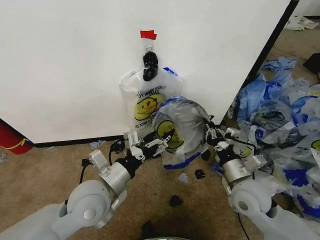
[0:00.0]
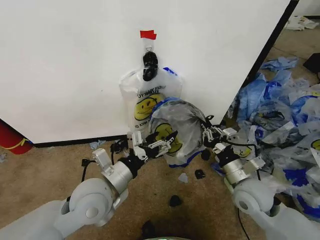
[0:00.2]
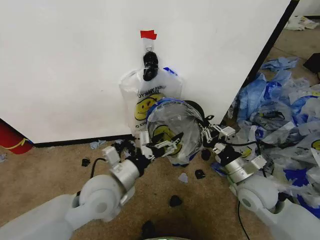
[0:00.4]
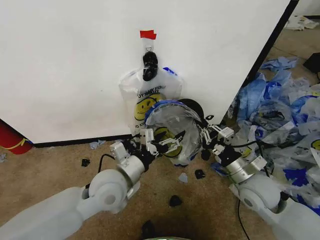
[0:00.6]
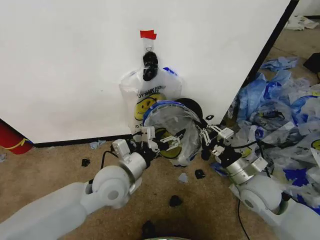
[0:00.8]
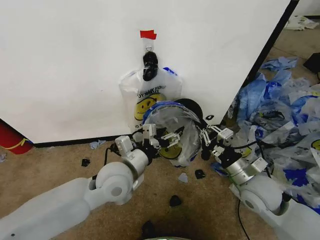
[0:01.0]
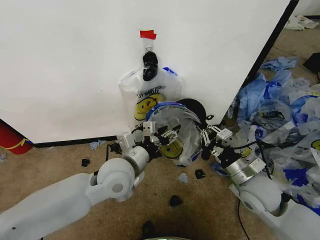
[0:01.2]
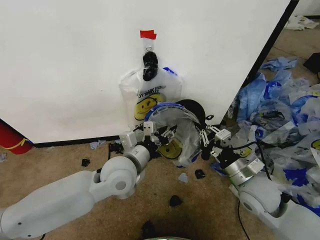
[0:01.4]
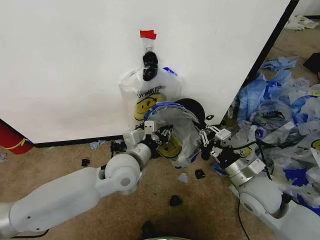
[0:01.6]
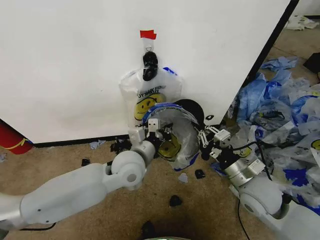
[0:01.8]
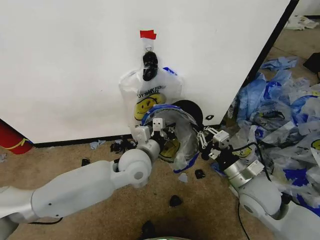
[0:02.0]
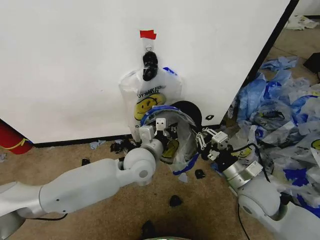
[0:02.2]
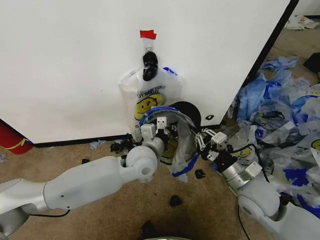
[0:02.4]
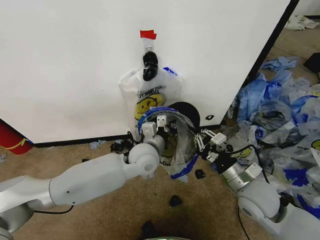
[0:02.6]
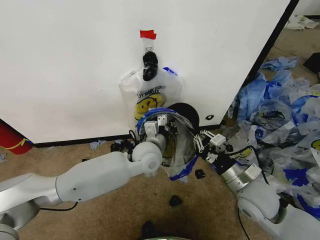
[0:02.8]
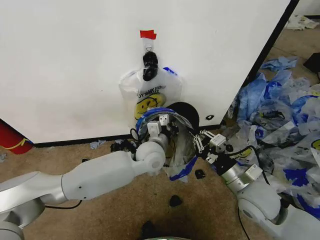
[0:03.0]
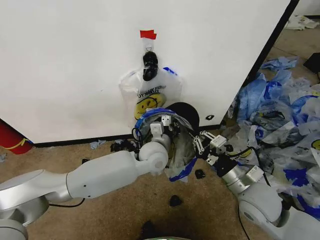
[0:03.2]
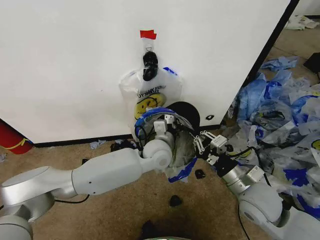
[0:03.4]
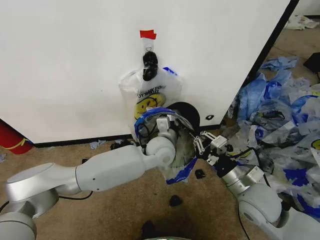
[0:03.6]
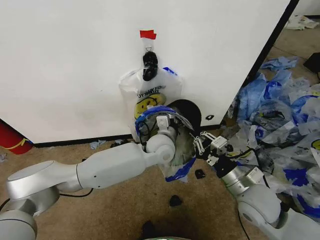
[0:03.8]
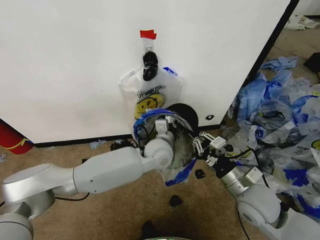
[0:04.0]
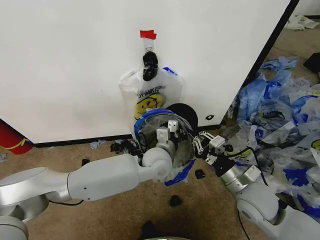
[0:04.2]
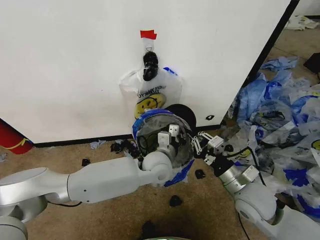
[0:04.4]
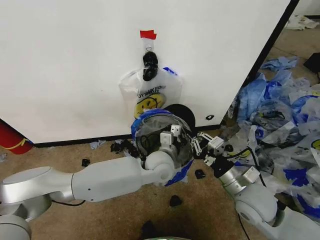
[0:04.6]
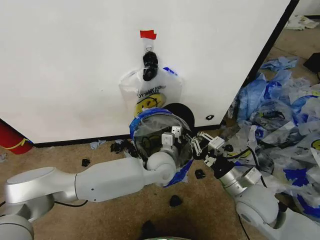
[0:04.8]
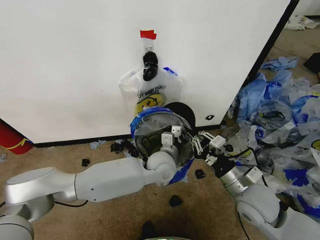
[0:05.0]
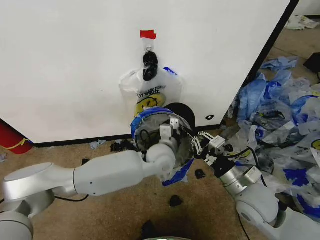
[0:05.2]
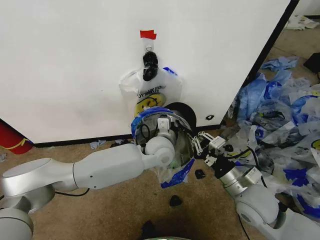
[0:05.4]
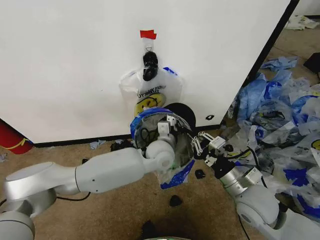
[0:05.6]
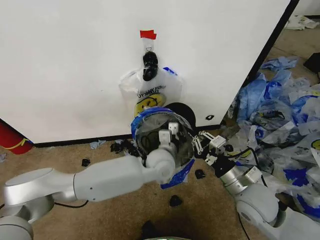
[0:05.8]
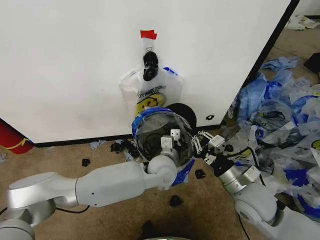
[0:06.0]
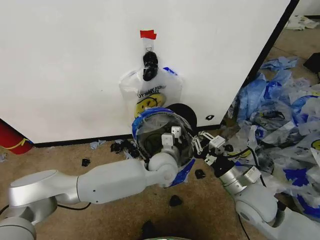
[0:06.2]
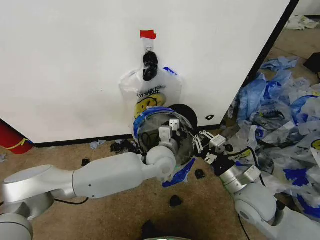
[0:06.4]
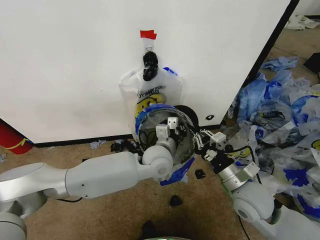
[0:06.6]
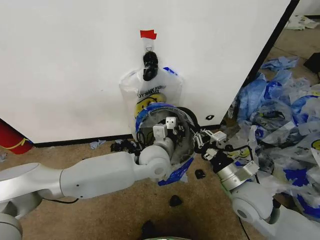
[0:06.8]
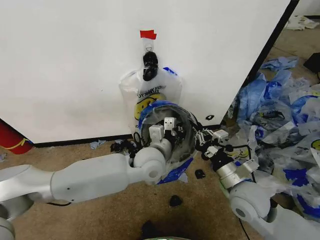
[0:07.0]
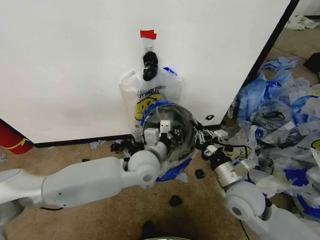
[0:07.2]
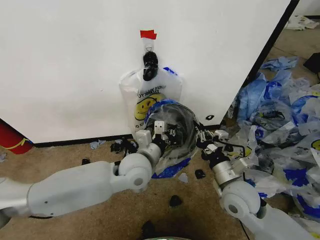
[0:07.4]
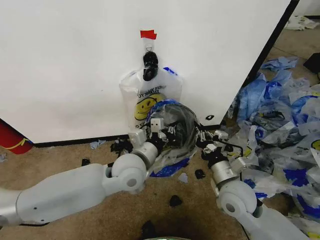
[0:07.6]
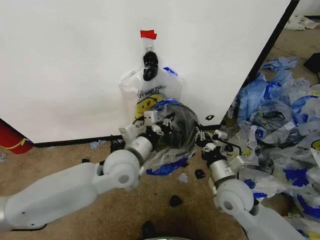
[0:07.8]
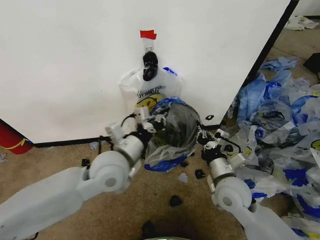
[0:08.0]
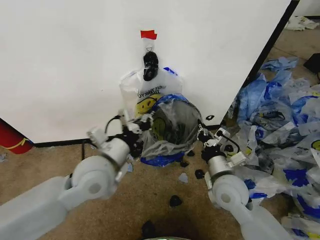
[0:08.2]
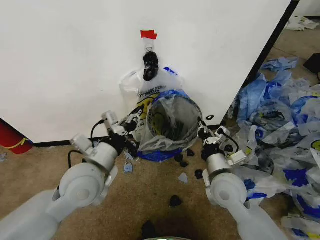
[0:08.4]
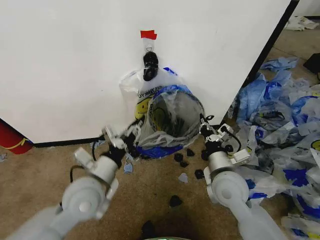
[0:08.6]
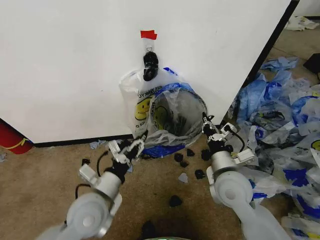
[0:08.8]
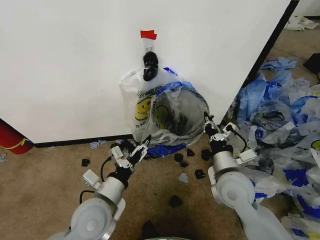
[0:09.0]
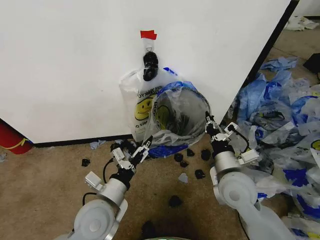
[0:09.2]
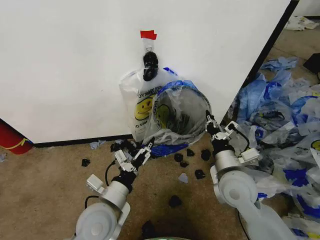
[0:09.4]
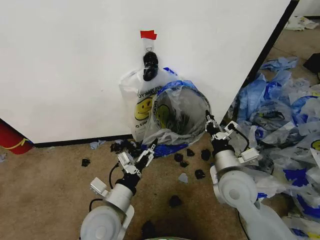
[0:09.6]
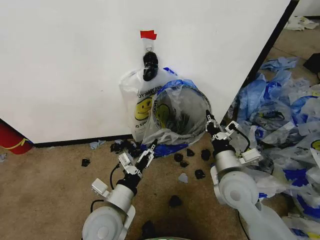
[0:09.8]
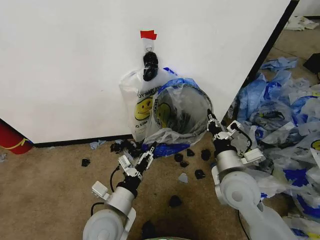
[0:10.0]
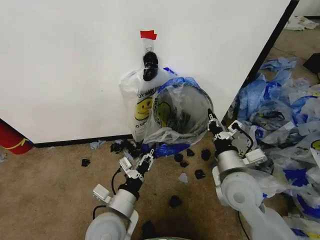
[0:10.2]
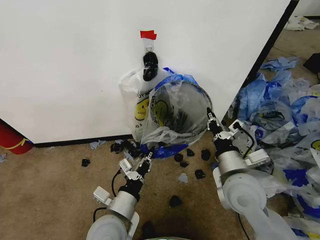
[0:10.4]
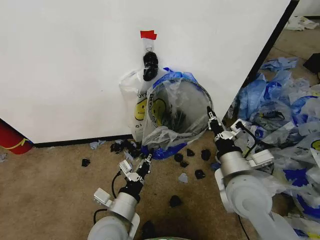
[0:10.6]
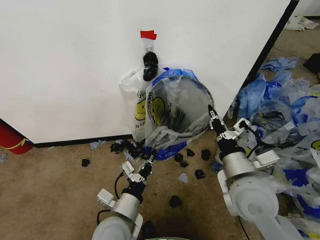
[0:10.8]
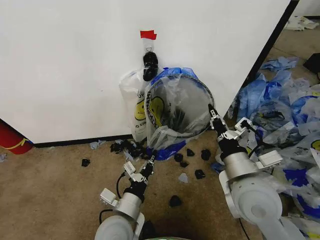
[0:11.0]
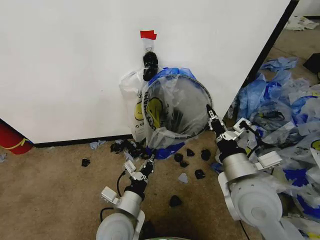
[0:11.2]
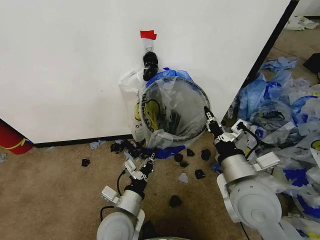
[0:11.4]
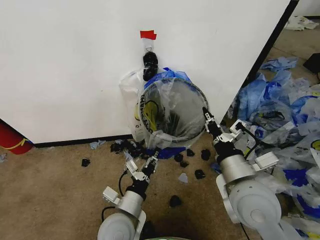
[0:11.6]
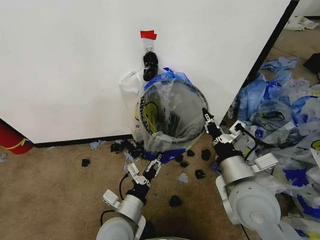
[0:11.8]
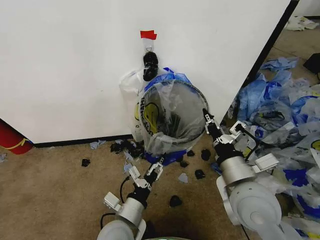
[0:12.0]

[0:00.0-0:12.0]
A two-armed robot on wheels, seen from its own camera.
Task of the whole recording: Pick up the garbage bag from the wall and place it over the trash bin.
0:00.0 to 0:01.6: The left gripper is displaced forward and to the right by about 10 cm, and closes up.
0:01.6 to 0:03.0: The left gripper goes roughly 10 cm to the right and forward.
0:03.0 to 0:06.0: The grippers move only a little.
0:06.0 to 0:07.6: The left gripper is displaced to the left and upward by some 10 cm.
0:07.6 to 0:09.0: The left gripper heads backward, to the left and downward, covering some 15 cm, and opens up.
0:09.0 to 0:10.4: The left gripper shifts by roughly 5 cm, and closes its fingers.
0:10.4 to 0:12.0: The left gripper opens up.

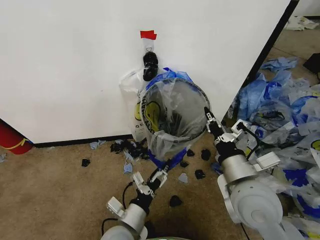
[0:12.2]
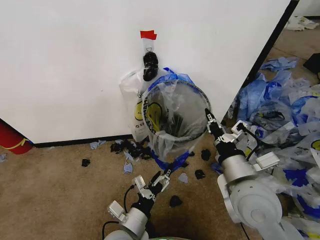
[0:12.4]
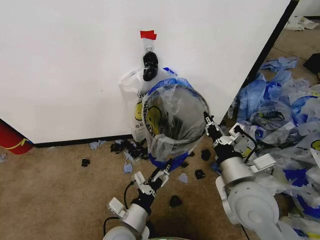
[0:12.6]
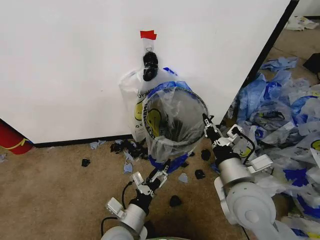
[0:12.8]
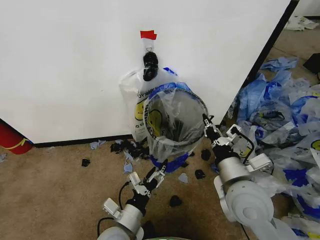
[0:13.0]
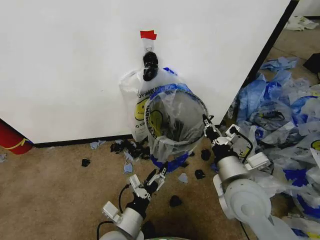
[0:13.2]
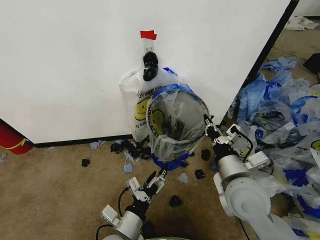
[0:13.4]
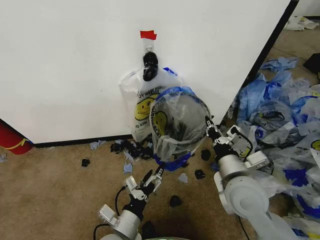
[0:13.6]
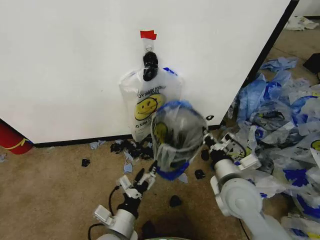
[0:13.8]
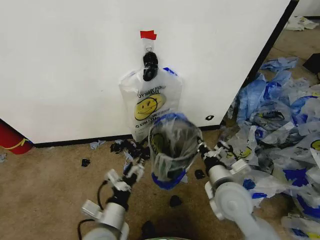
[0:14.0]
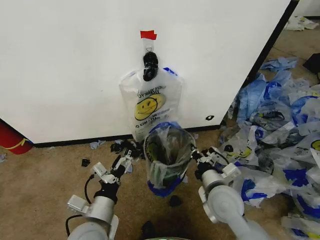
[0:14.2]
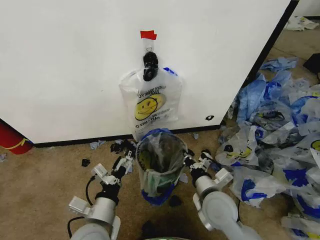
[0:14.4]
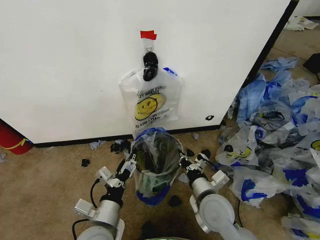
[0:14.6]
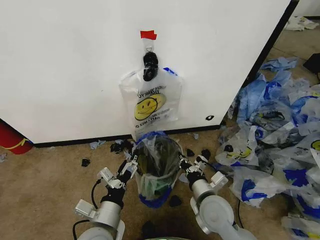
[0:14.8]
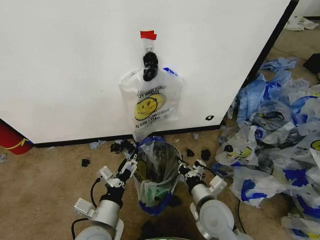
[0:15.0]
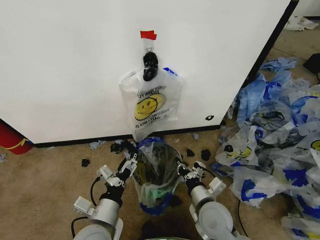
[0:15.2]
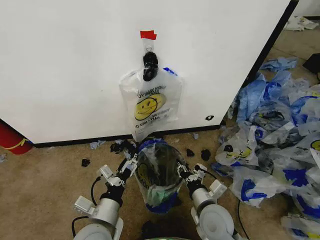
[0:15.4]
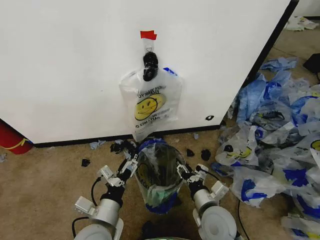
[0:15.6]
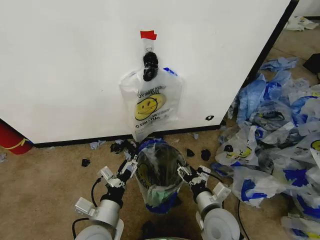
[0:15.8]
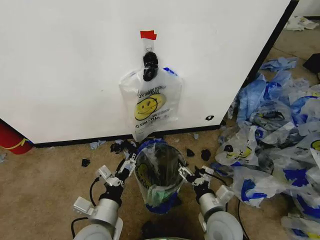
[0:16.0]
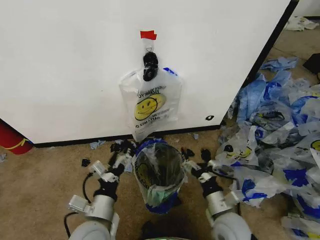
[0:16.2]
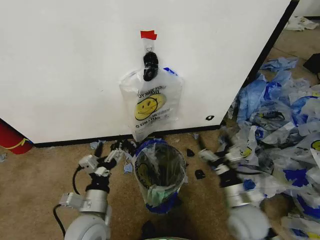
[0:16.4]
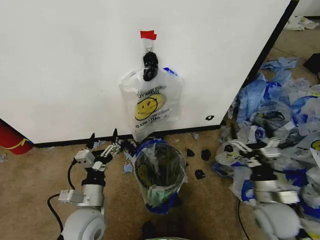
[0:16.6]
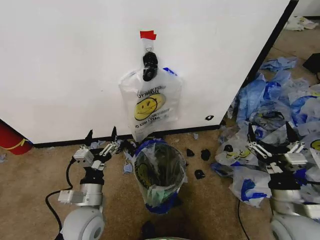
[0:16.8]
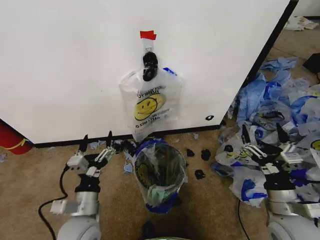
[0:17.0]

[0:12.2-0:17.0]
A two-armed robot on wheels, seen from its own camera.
Task of the whole recording: Pick up the garbage bag from the wall and place it over the trash bin.
0:12.2 to 0:13.8: The right gripper heads downward, covering some 5 cm.
0:13.8 to 0:15.4: The left gripper shifts by roughly 5 cm. Meanwhile the right gripper goes some 10 cm downward.
0:15.4 to 0:17.0: The right gripper shifts about 15 cm to the right, and opens up.
